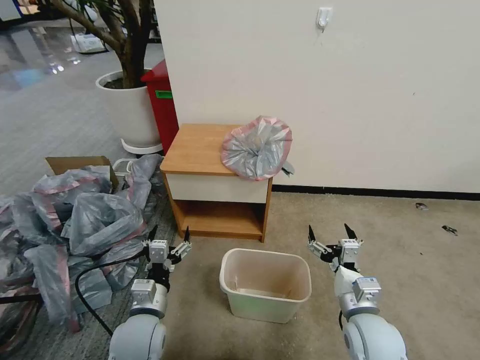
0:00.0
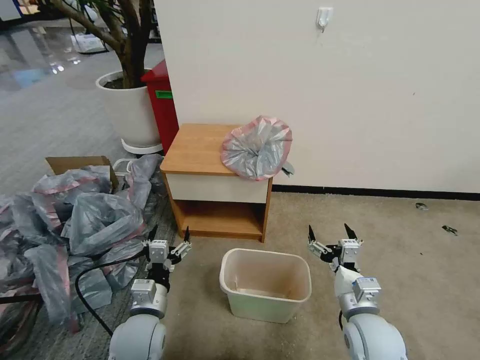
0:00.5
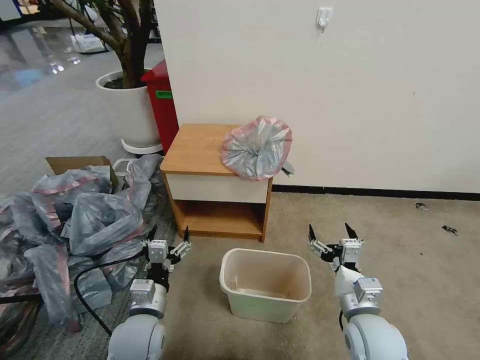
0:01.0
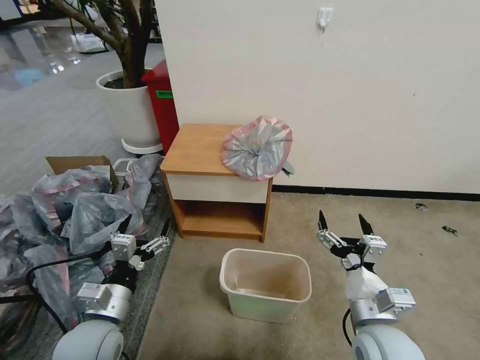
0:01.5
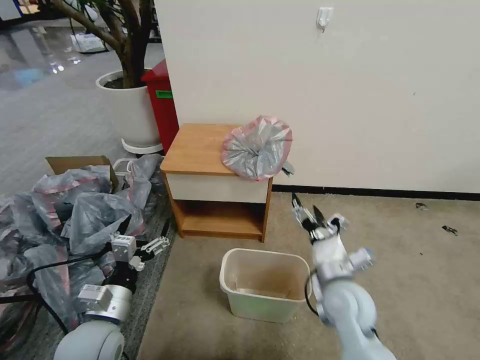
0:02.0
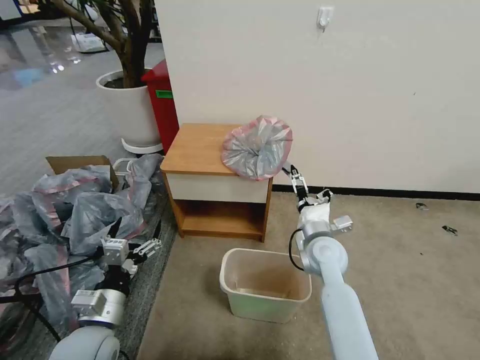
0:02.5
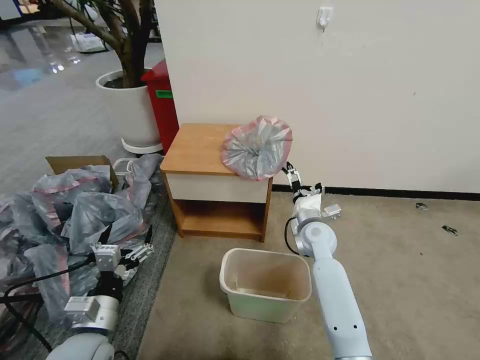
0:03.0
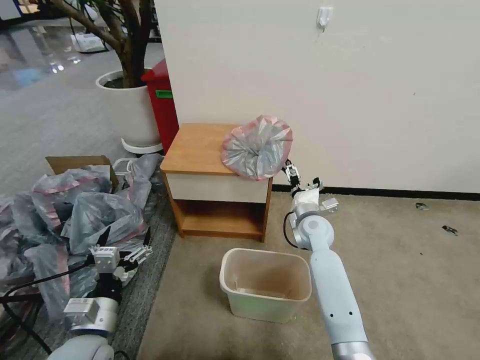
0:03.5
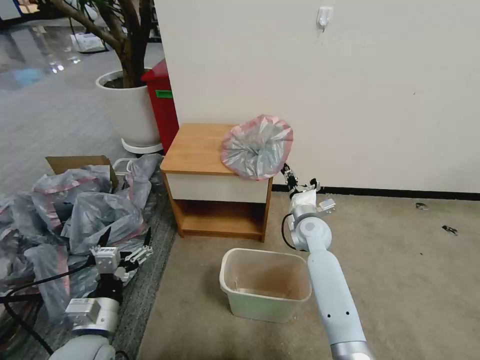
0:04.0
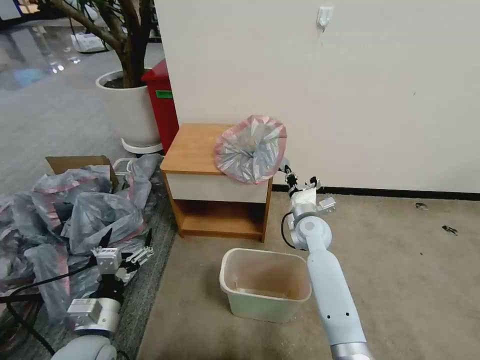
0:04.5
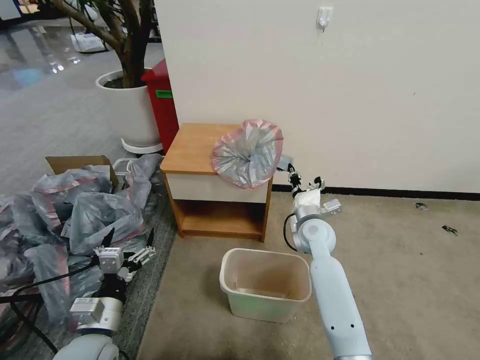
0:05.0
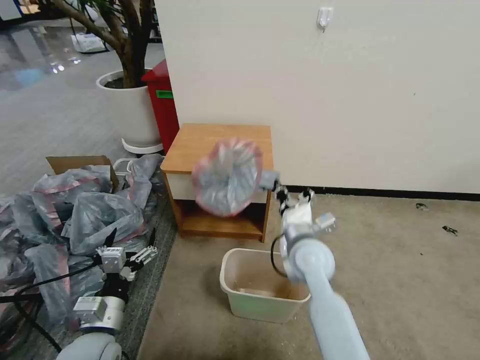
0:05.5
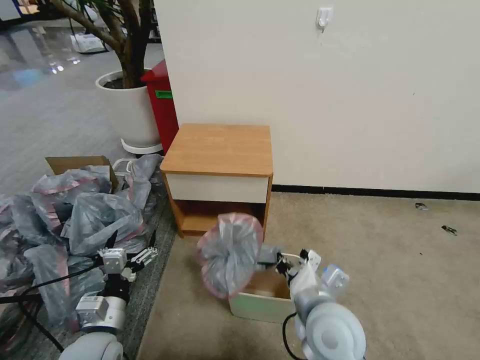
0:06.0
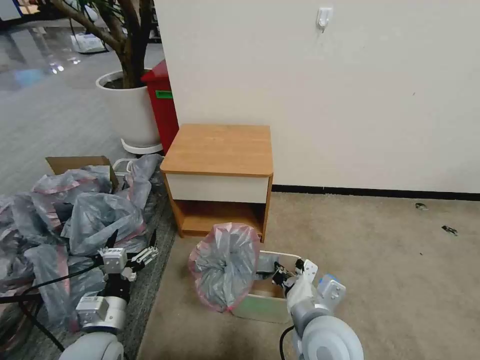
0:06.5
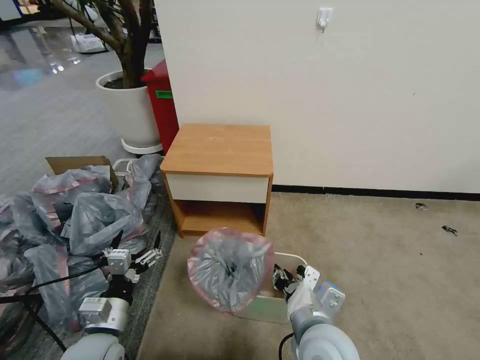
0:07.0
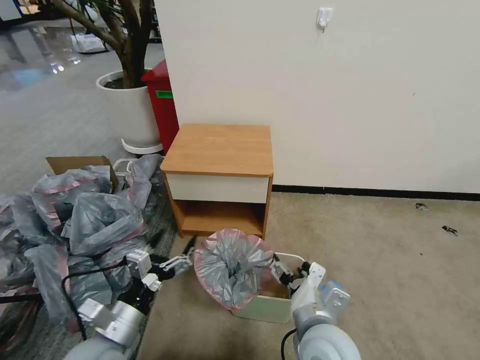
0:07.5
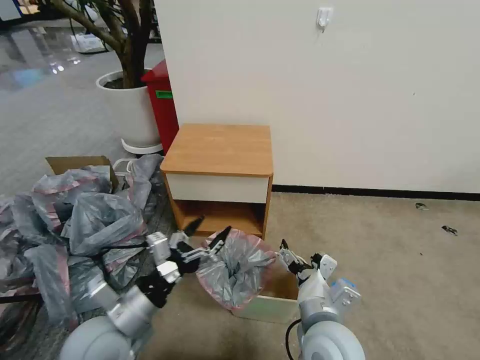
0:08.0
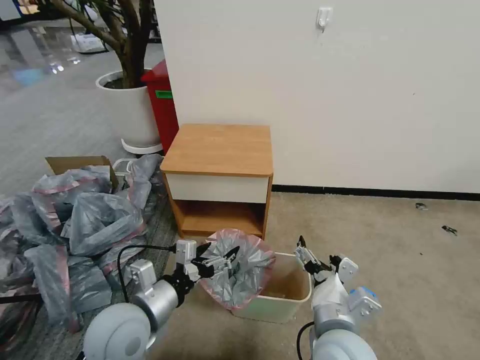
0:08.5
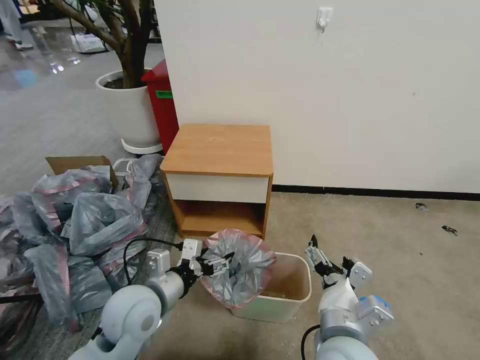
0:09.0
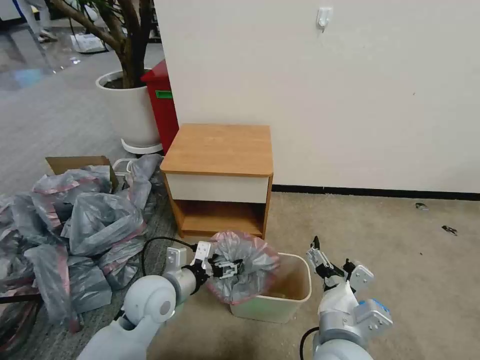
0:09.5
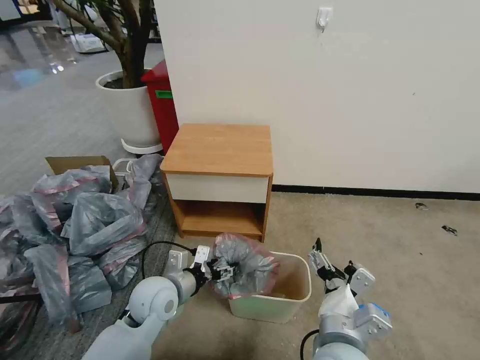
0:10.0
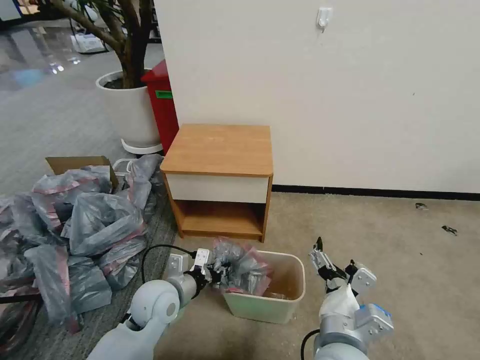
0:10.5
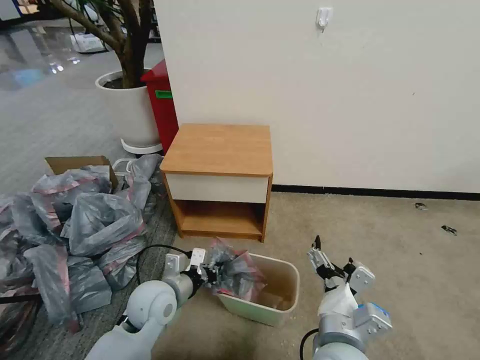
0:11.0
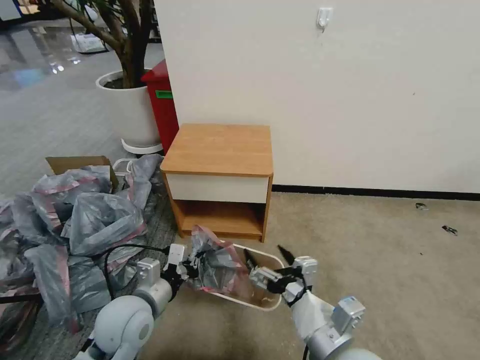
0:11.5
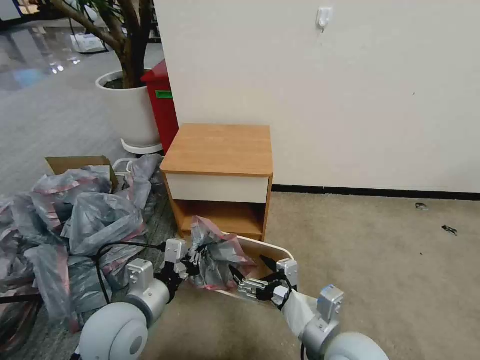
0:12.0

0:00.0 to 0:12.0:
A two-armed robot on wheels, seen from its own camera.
Task of the whole recording: Pick up the garbage bag from the table and place it over the trash can.
0:02.0 to 0:04.0: The right gripper is displaced forward by about 20 cm, and closes its fingers.
0:04.0 to 0:06.0: The right gripper moves backward, some 25 cm.
0:06.0 to 0:08.0: The right gripper opens up. The left gripper moves upward, roughly 10 cm.
0:08.0 to 0:10.0: The left gripper moves forward and downward, roughly 10 cm.
0:10.0 to 0:12.0: The left gripper goes about 10 cm backward and upward, and closes its fingers.

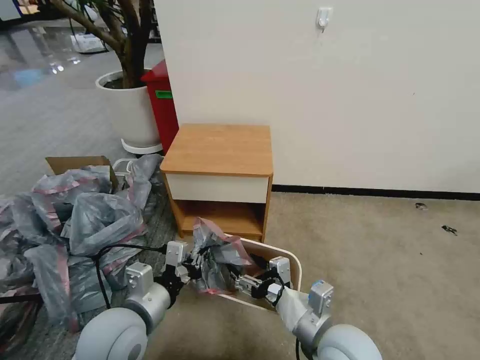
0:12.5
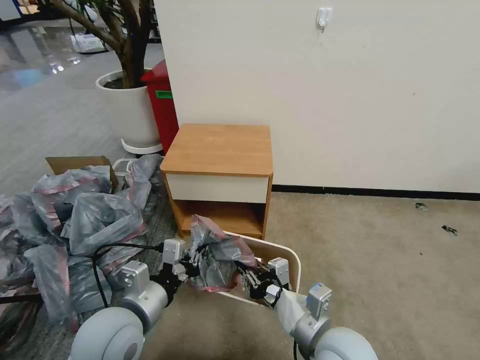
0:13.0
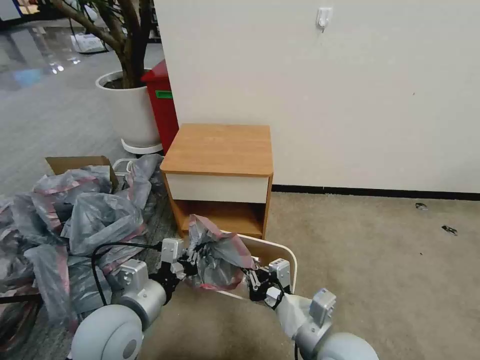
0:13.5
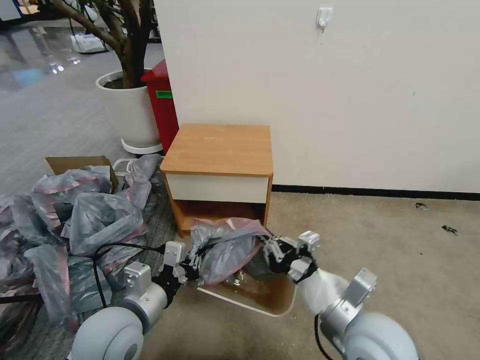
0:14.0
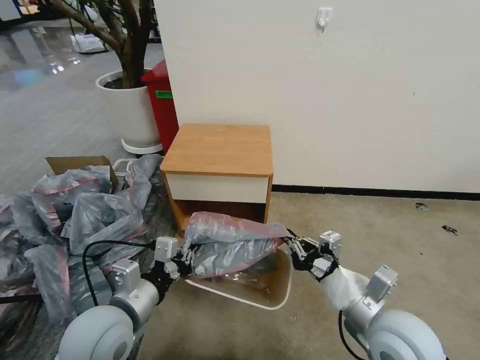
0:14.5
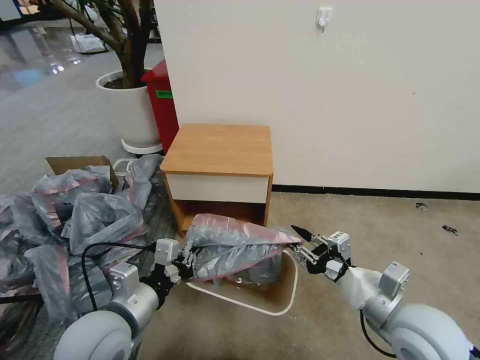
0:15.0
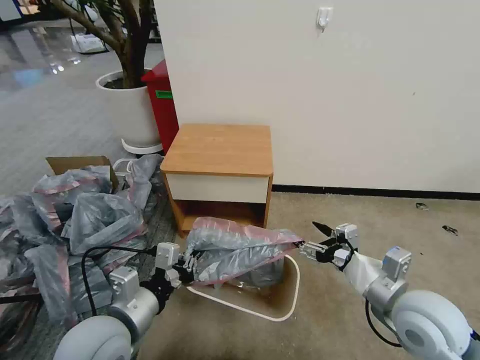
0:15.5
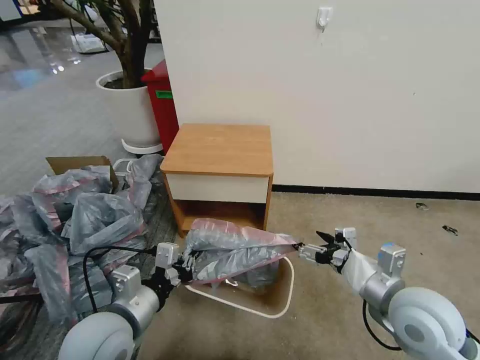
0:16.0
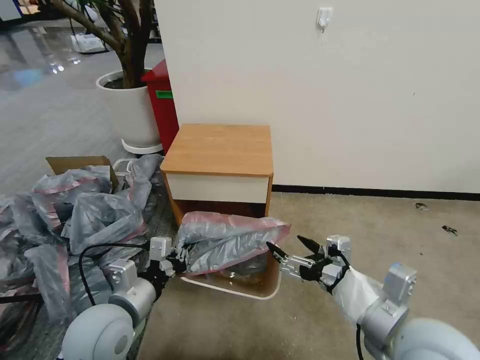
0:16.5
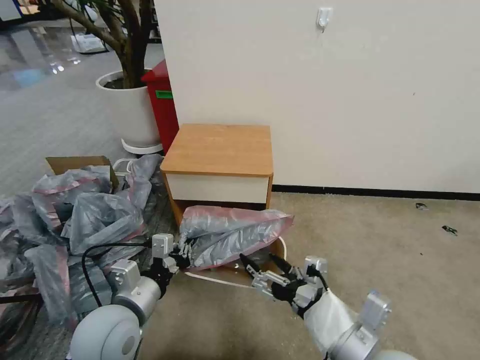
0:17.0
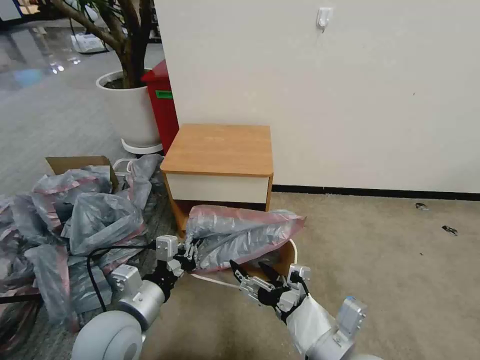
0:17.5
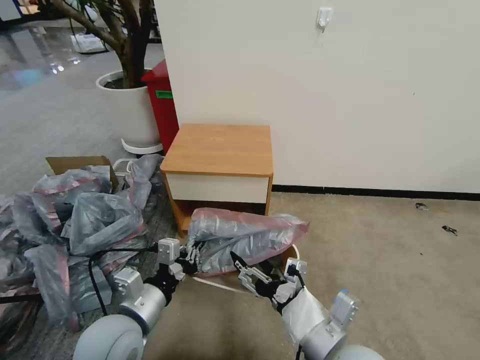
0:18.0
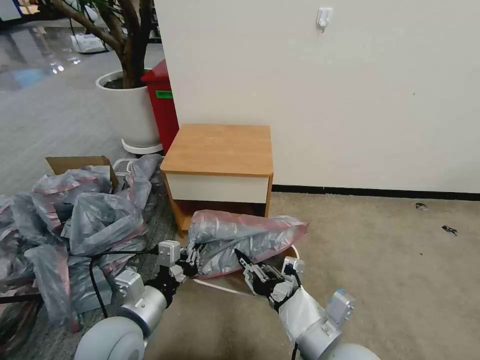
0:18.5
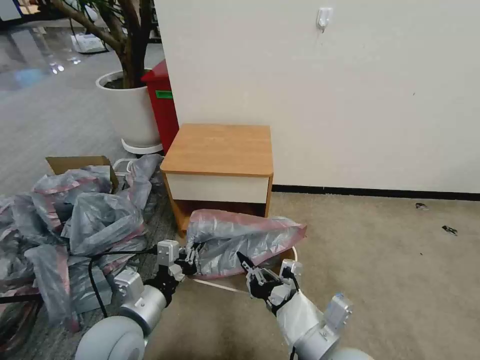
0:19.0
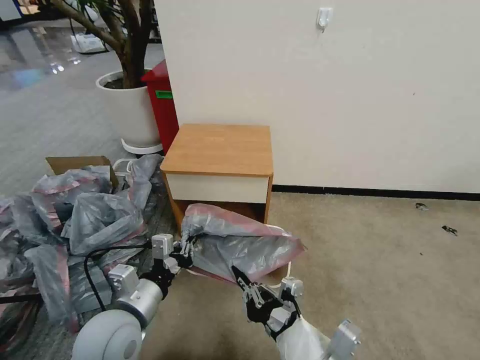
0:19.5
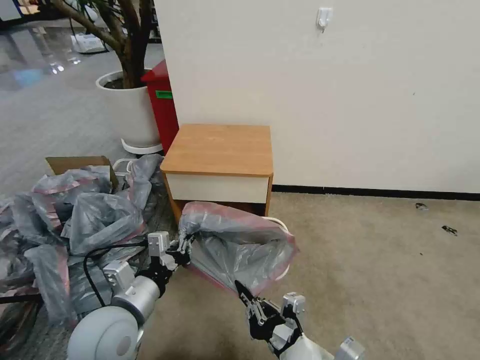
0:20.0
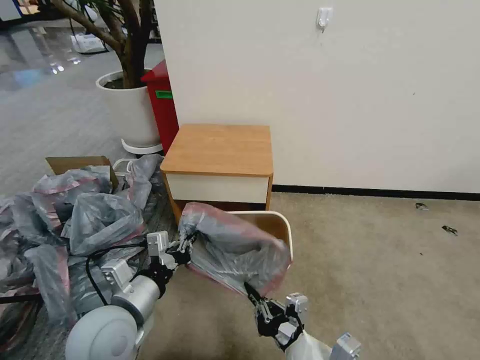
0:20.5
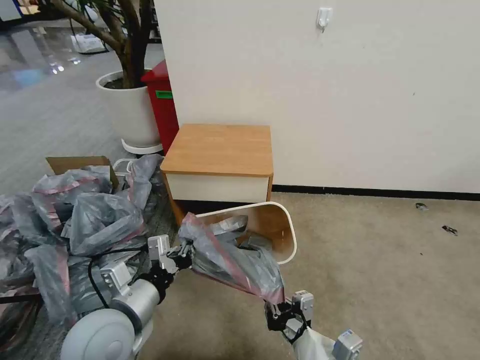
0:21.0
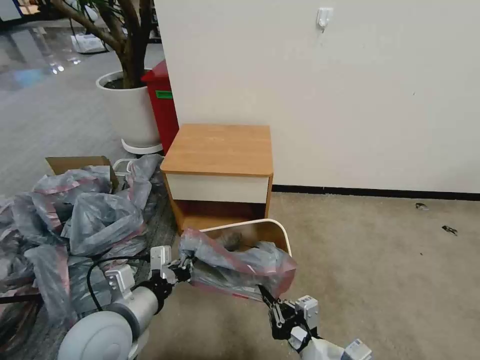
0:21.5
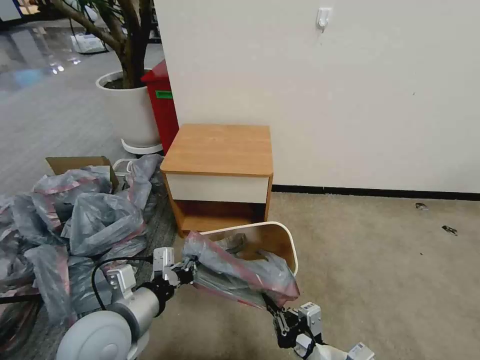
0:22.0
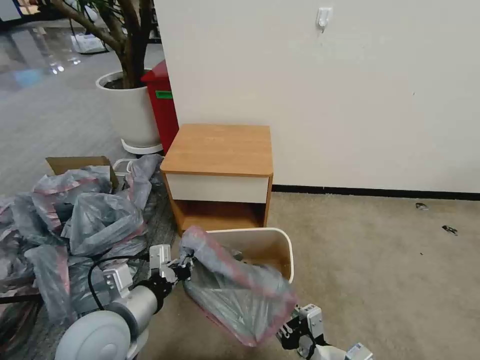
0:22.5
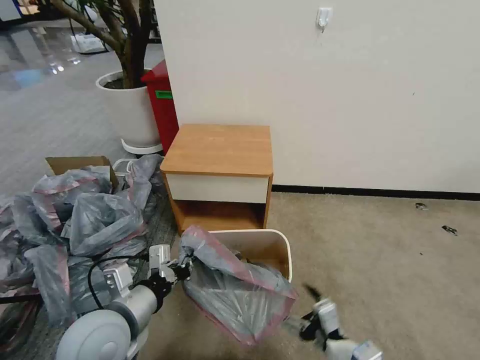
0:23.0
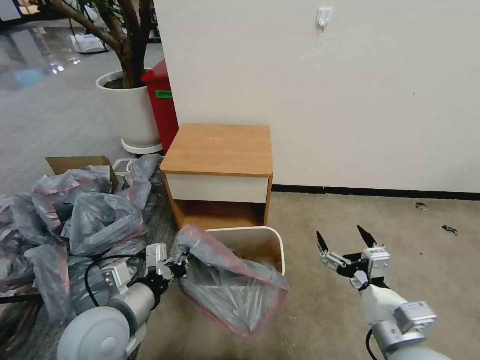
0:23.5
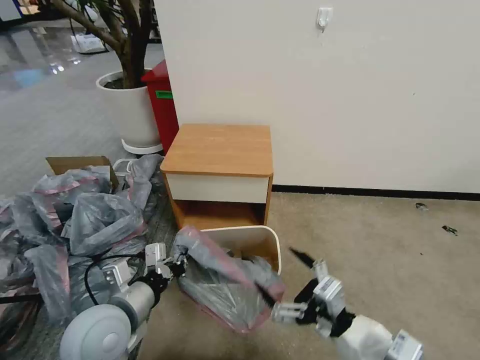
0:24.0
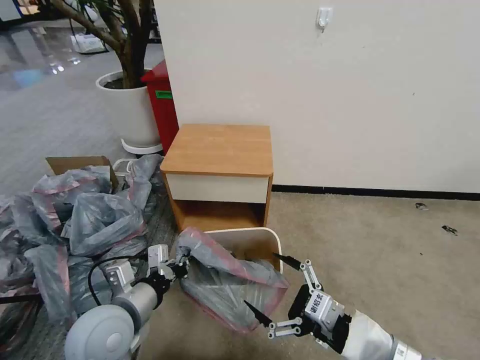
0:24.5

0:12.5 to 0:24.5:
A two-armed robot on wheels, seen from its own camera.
Task of the whole recording: Pick up the garbage bag from the table and place it over the trash can.
0:12.5 to 0:14.5: The right gripper goes approximately 10 cm to the right, and closes its fingers.
0:14.5 to 0:16.5: The right gripper travels upward by some 5 cm, and opens.
0:16.5 to 0:18.5: The right gripper heads to the left and downward, covering roughly 10 cm, and closes.
0:18.5 to 0:20.5: The right gripper moves backward, some 5 cm.
0:20.5 to 0:22.5: The right gripper changes place by about 5 cm.
0:22.5 to 0:24.5: The right gripper heads upward, covering approximately 10 cm, and opens.

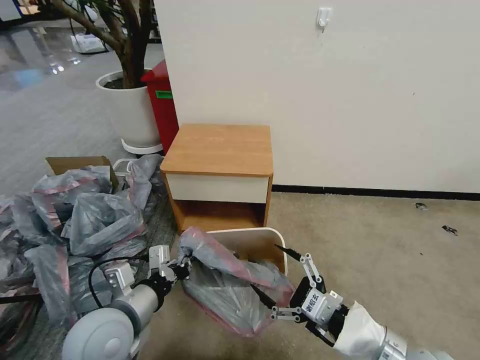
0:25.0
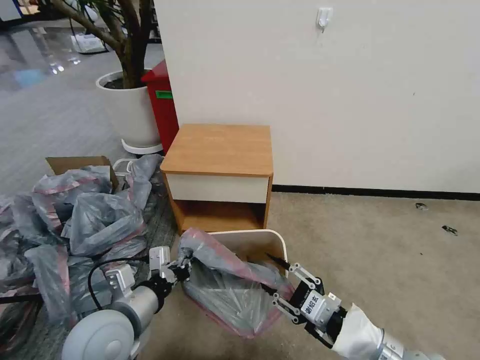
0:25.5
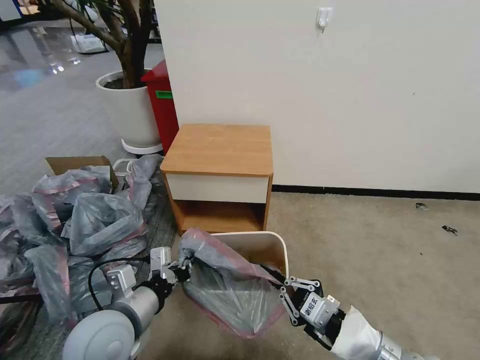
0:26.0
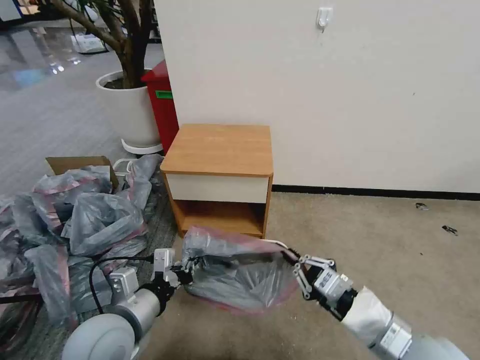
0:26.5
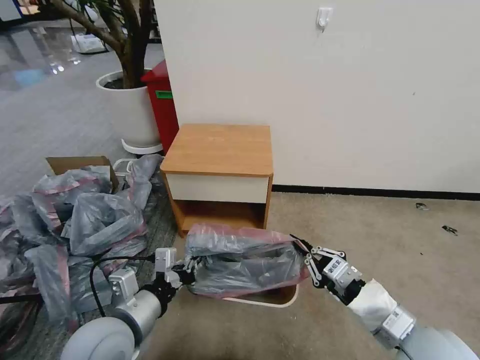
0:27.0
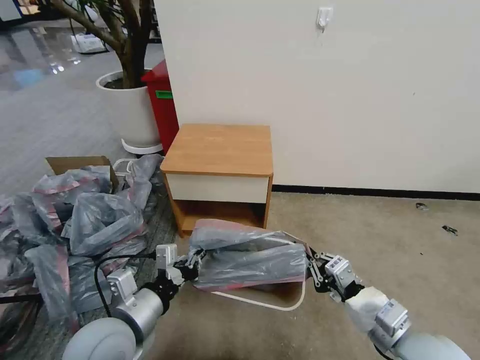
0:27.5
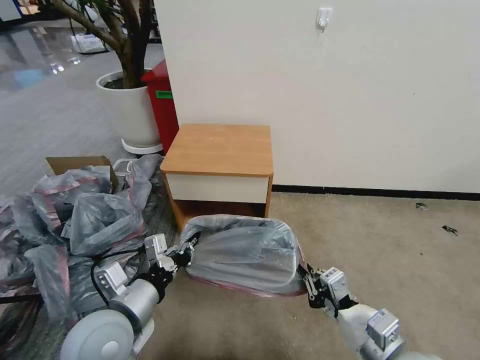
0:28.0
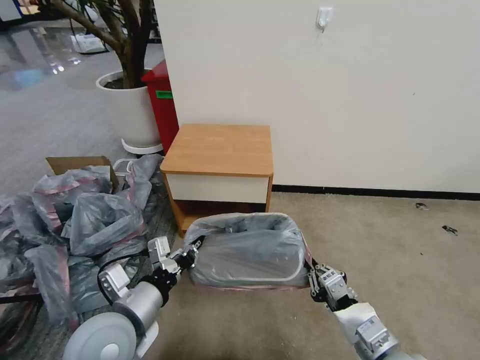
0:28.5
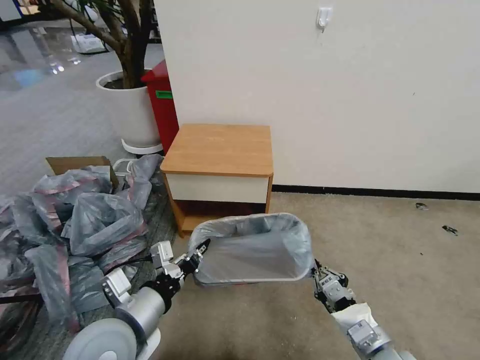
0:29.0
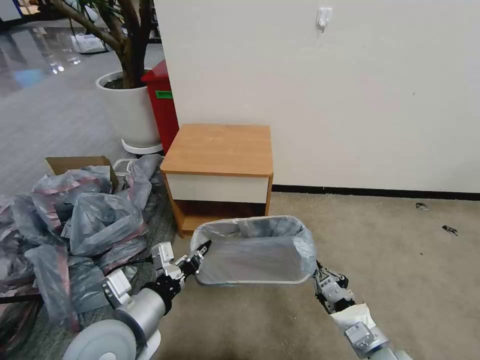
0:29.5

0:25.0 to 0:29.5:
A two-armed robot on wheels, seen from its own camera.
Task of the whole recording: Pick up the garbage bag from the table and place it over the trash can.
0:25.0 to 0:27.0: The right gripper closes.
0:27.0 to 0:29.5: The right gripper heads downward, covering roughly 10 cm.
